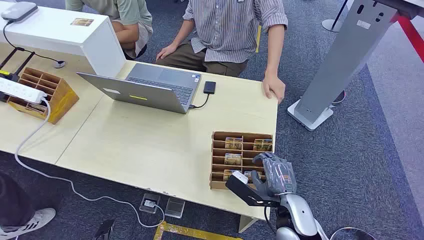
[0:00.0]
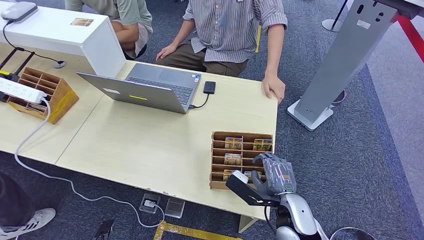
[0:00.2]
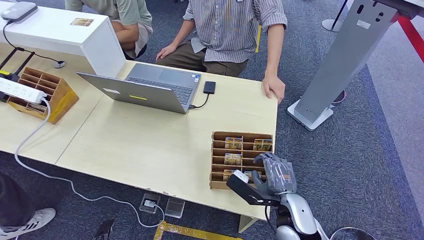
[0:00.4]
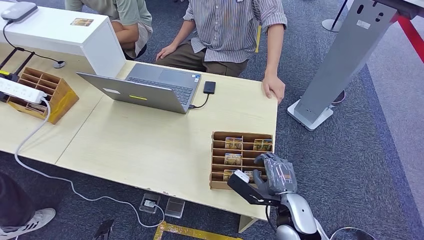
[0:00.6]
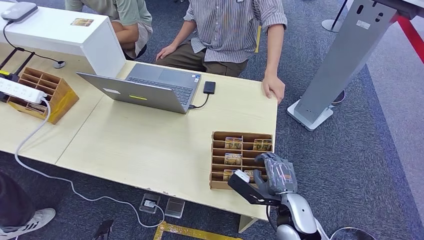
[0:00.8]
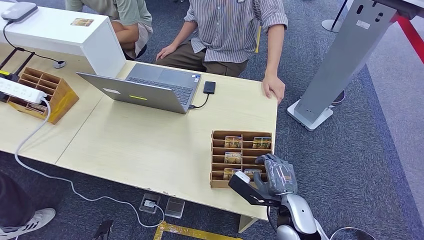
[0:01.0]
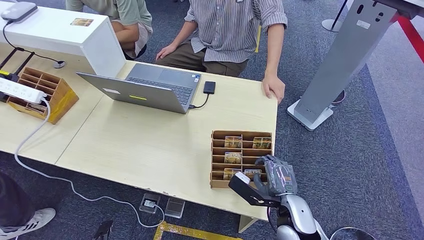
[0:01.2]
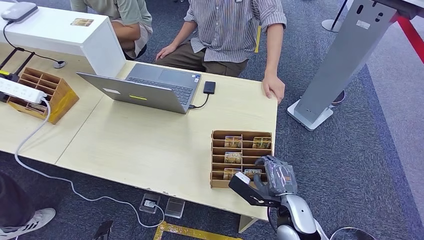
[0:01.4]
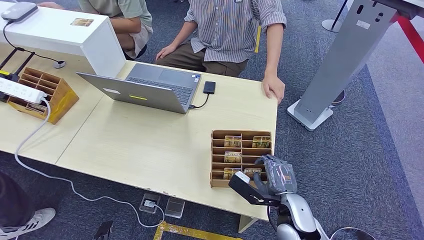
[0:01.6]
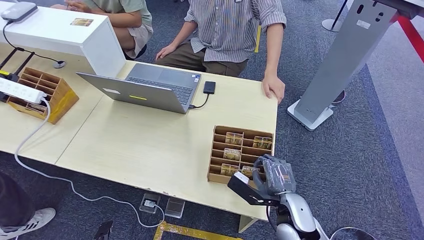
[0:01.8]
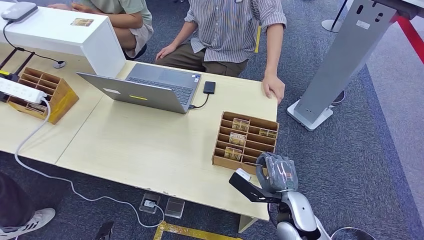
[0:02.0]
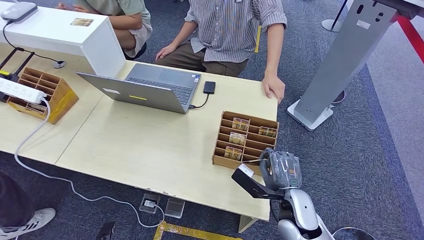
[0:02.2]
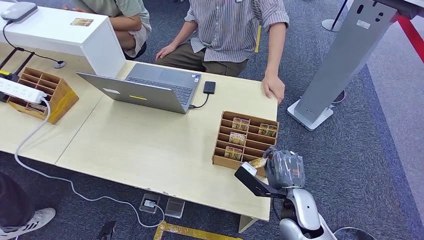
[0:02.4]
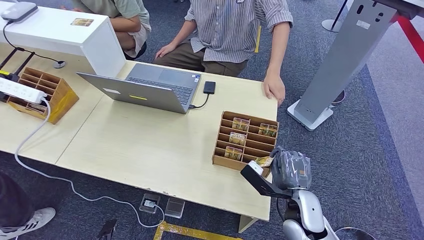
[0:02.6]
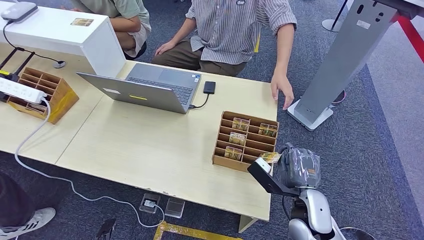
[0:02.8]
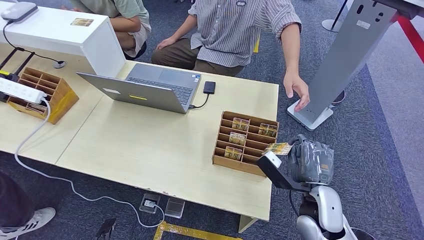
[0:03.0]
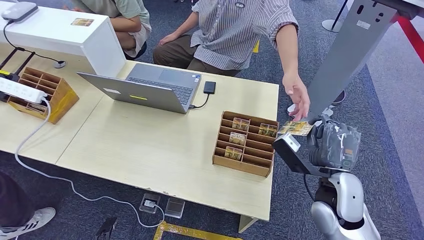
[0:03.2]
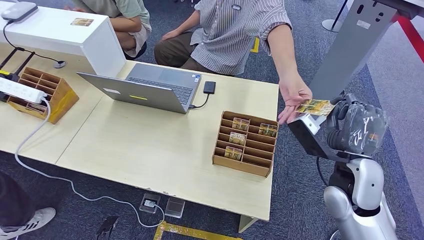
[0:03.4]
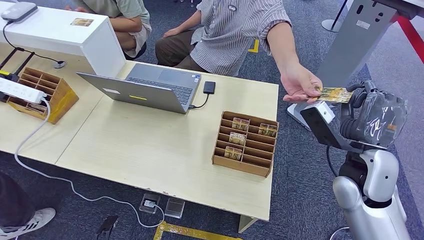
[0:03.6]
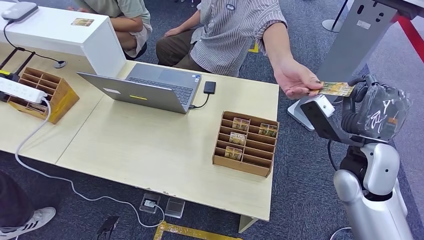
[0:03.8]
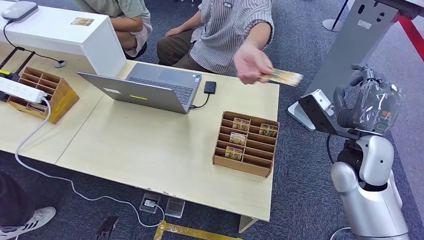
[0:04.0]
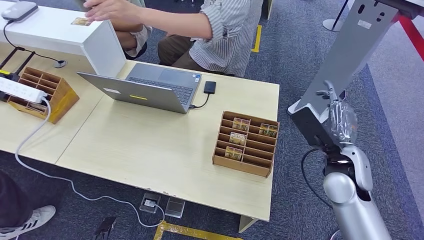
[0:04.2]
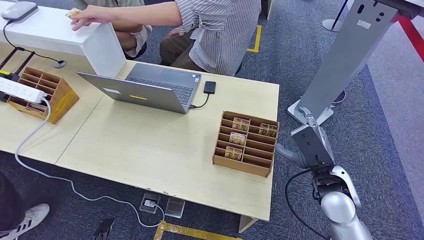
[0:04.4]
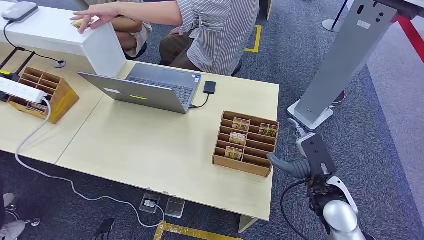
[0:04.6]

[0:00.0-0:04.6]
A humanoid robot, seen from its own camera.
Step, 0:00.0 to 0:02.8: Pick up the key card from the card box.
Step, 0:03.8 to 0:04.4: Hand the key card to the target.
0:01.6 to 0:03.0: The right hand moves approximately 5 cm.
0:03.0 to 0:04.6: The right hand moves some 10 cm upward and comes back.
